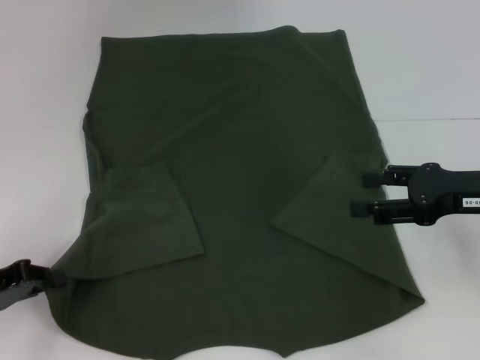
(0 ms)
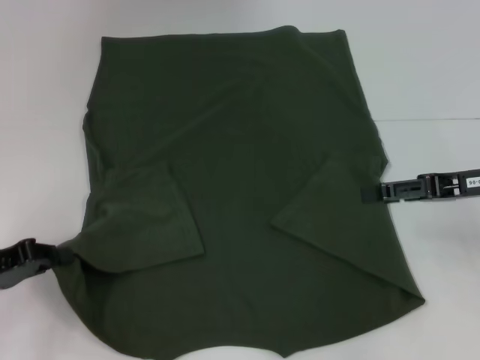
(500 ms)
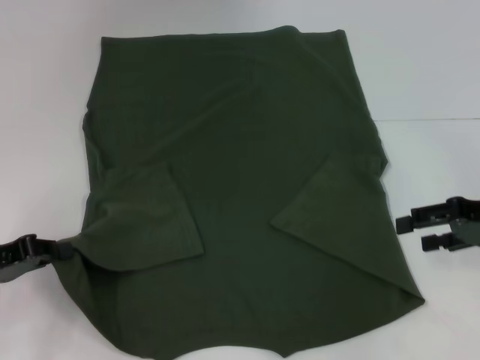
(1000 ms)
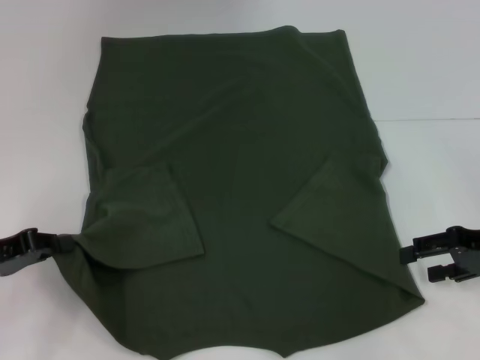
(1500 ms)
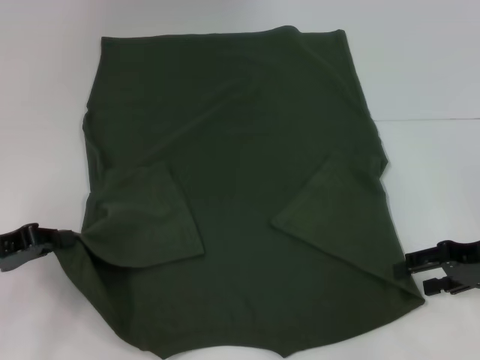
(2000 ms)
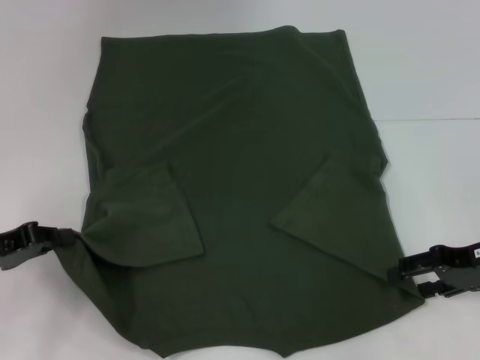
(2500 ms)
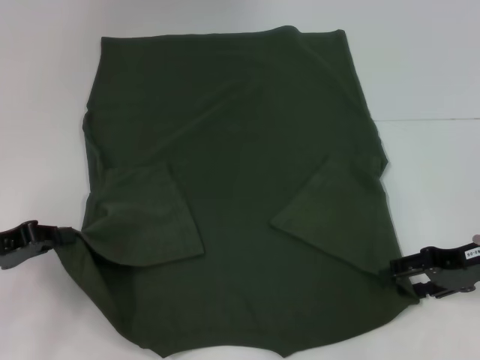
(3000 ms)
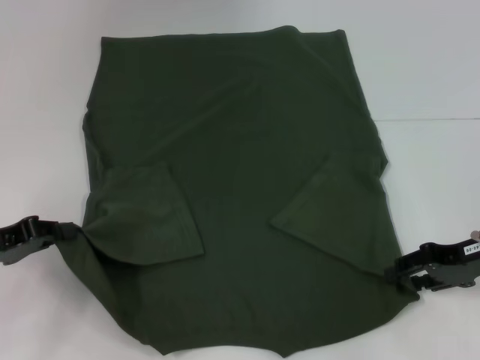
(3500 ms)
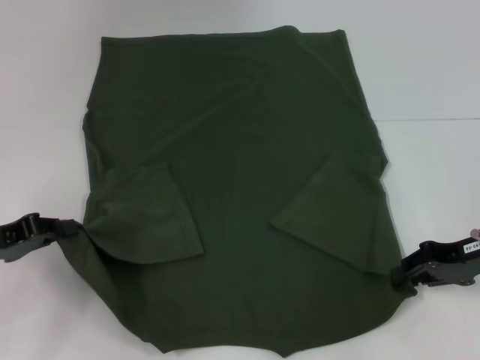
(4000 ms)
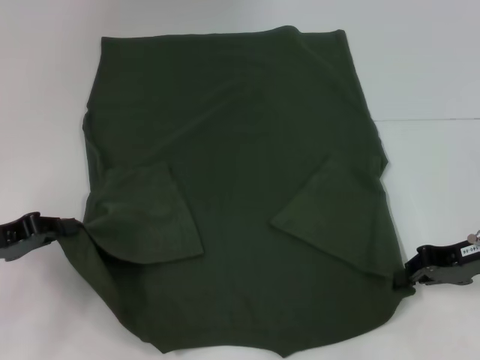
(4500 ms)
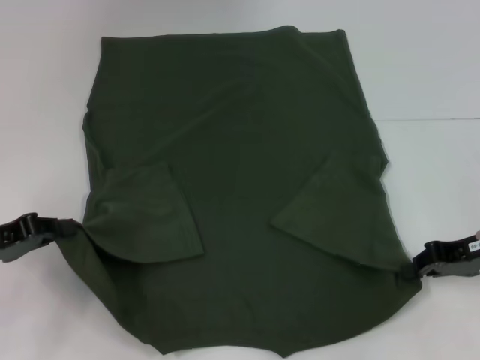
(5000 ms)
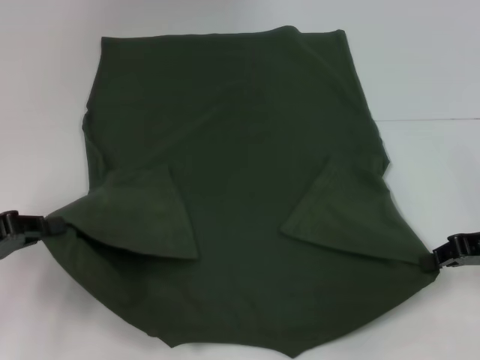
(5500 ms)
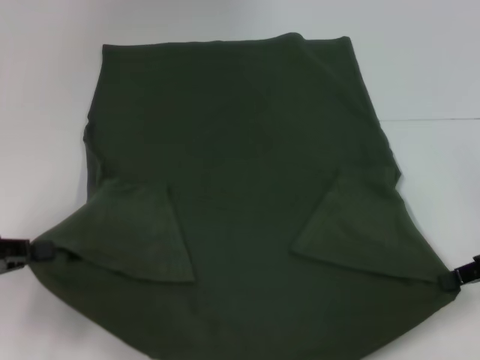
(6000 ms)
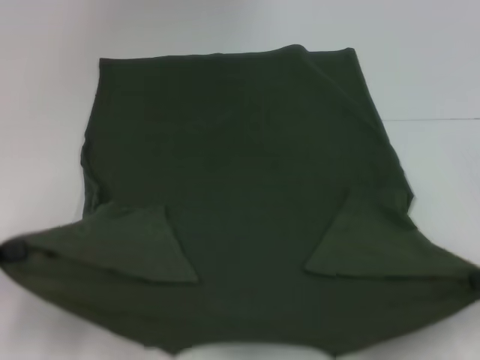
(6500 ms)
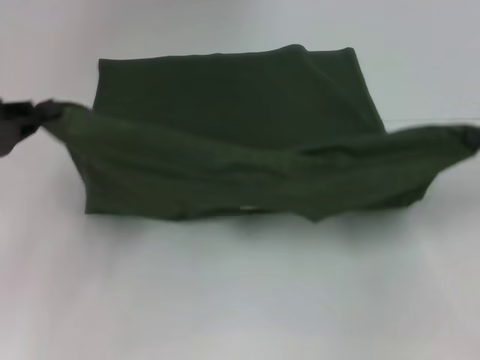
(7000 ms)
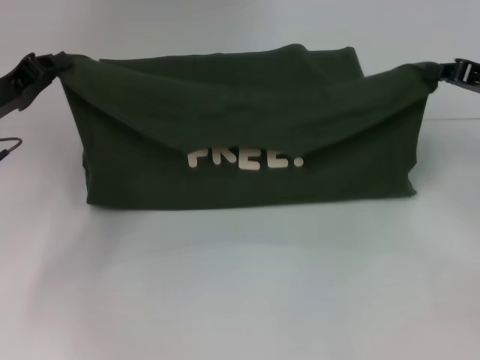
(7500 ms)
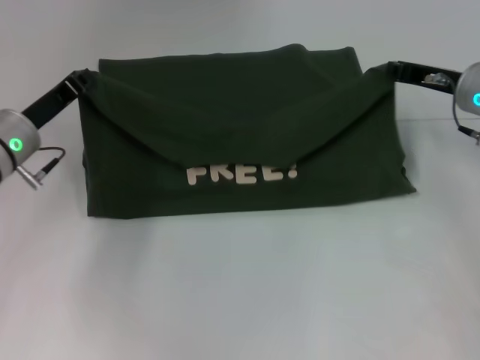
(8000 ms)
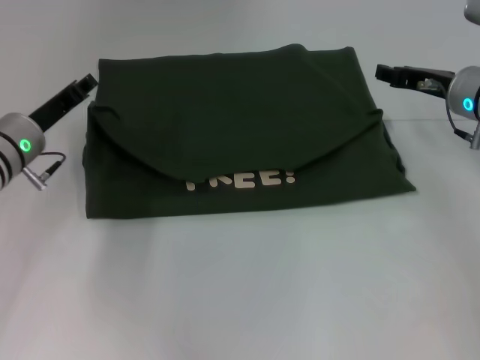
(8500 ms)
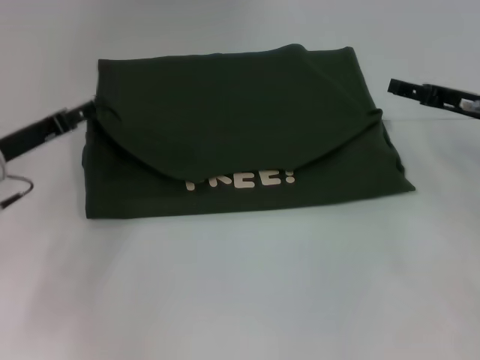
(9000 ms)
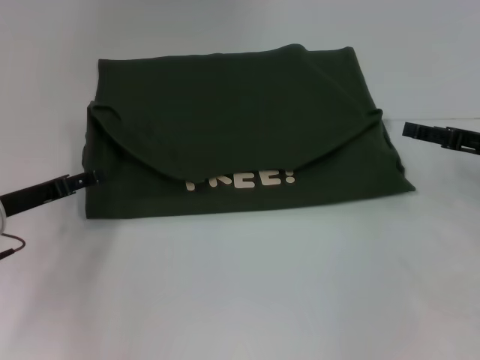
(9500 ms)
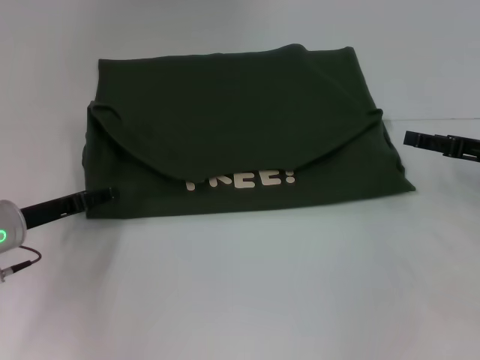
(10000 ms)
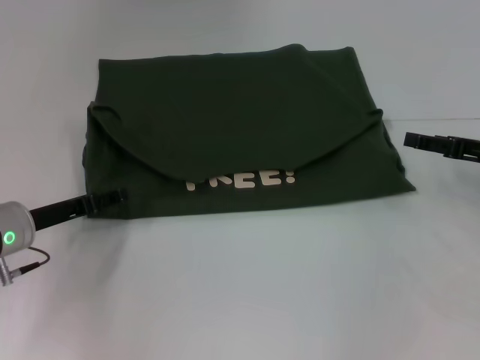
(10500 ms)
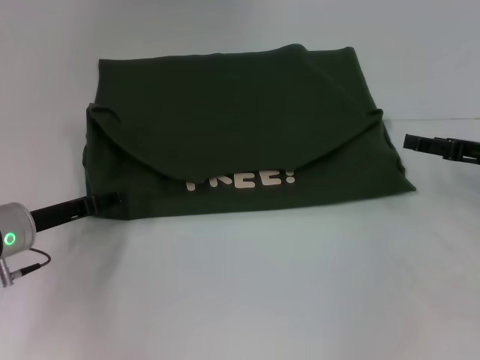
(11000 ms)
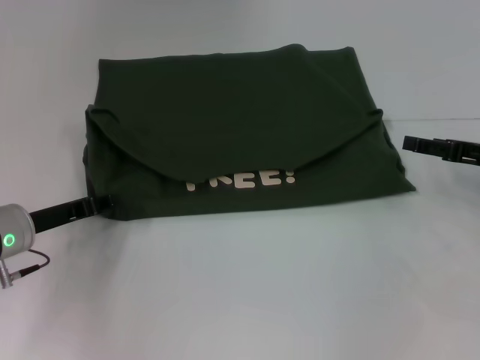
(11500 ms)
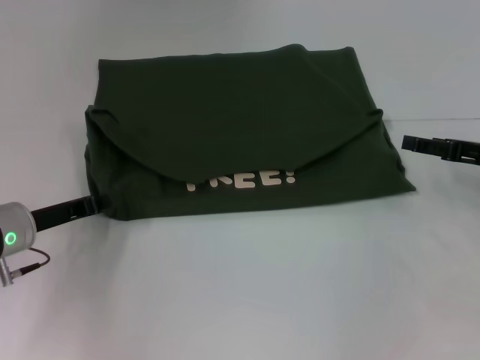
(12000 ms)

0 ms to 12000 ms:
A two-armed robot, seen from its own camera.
Step, 0 ms to 4000 ms: Grab the bottom right corner with your right hand.
Step, 4500 ms to 9500 ms: Fold the clothes with your left hand.
Step, 4500 ms to 9500 ms: Fold the clothes with your right hand.
2000 ms to 4000 ms: The right gripper closes its fingers.
4000 ms to 6000 ms: The right gripper ends up about 5 cm from where it was; the left gripper moves approximately 5 cm.
6000 ms to 8000 ms: The left gripper is displaced forward and to the right by roughly 20 cm; the right gripper goes approximately 15 cm forward and to the left.
8000 ms to 10000 ms: The left gripper travels backward and downward by approximately 5 cm, and opens, while the right gripper travels backward and to the right by approximately 10 cm, and opens.
10000 ms to 12000 ms: The left gripper closes its fingers.

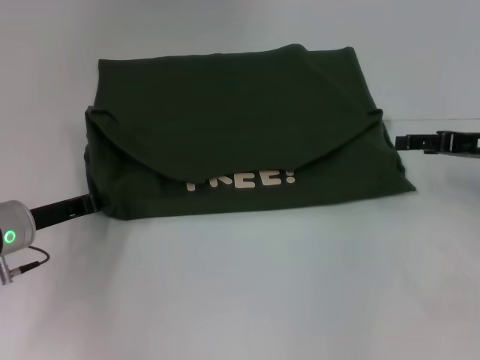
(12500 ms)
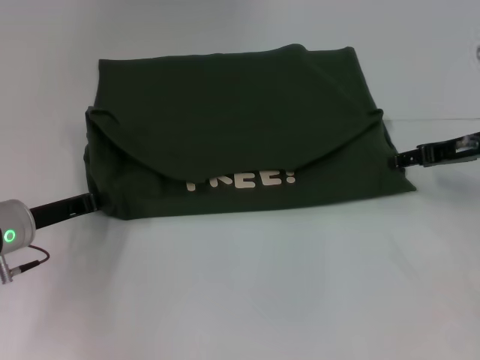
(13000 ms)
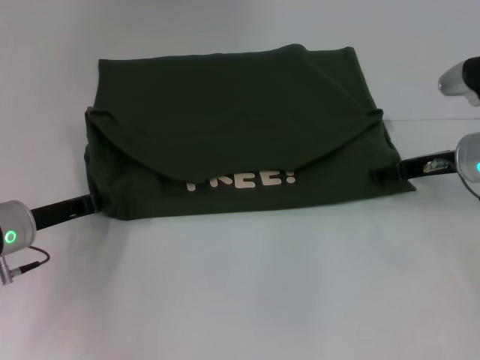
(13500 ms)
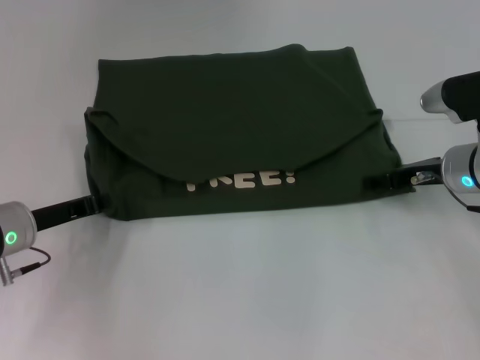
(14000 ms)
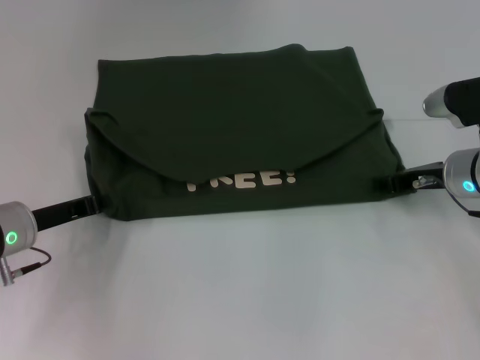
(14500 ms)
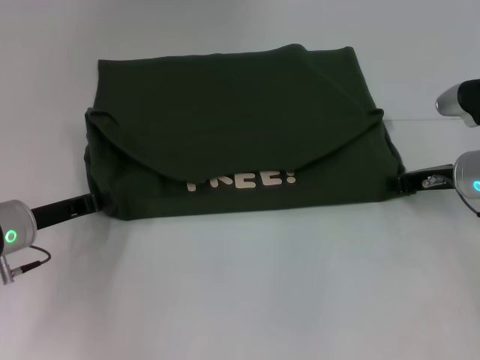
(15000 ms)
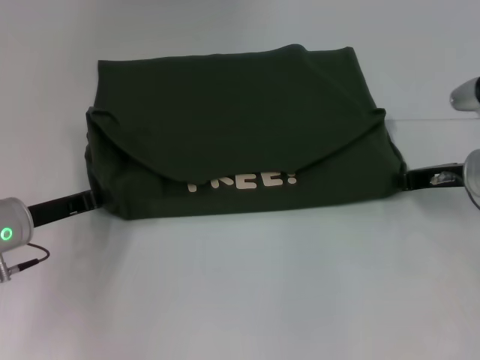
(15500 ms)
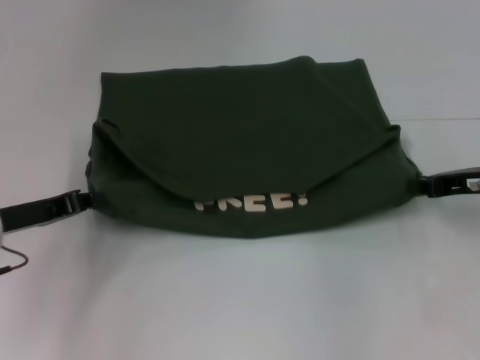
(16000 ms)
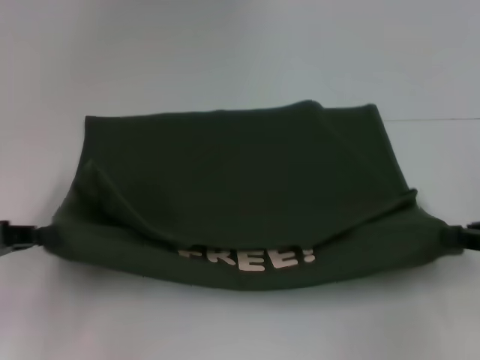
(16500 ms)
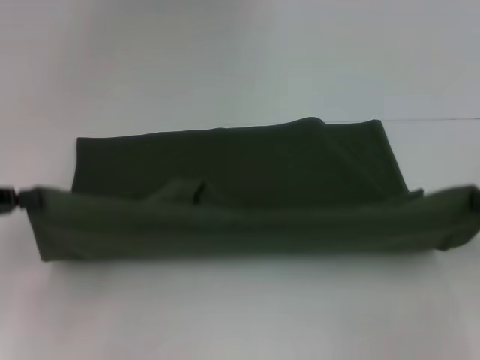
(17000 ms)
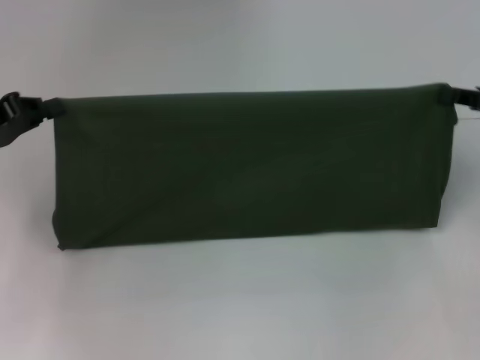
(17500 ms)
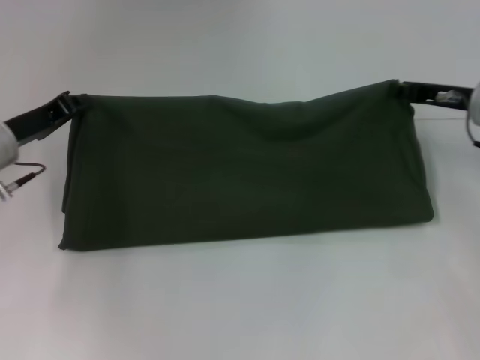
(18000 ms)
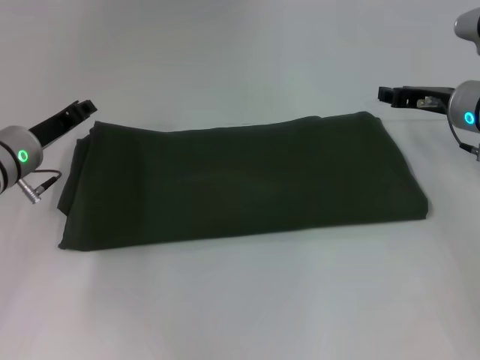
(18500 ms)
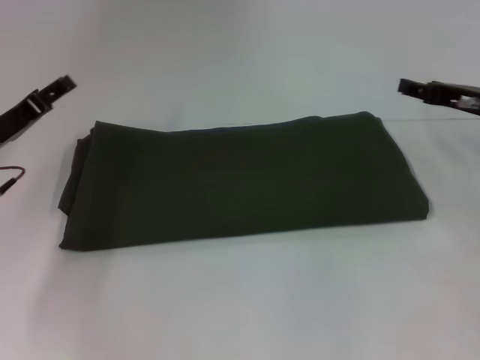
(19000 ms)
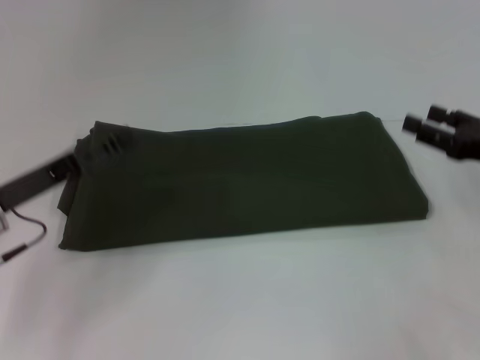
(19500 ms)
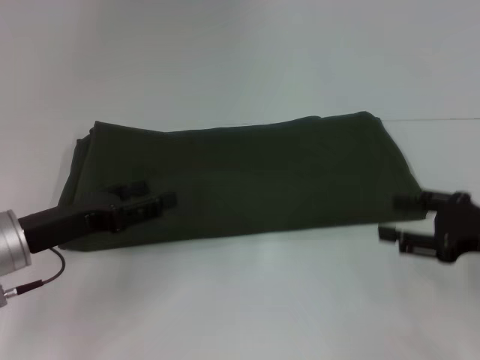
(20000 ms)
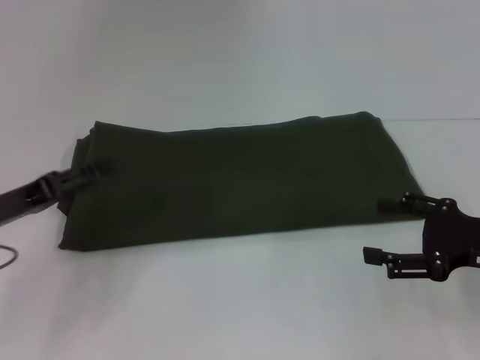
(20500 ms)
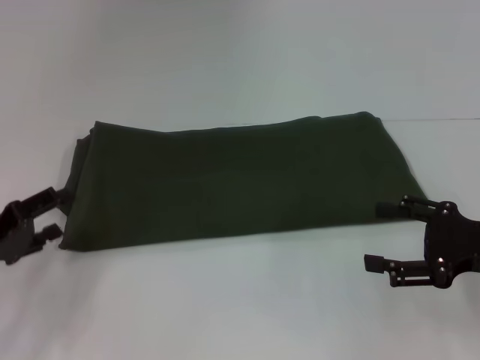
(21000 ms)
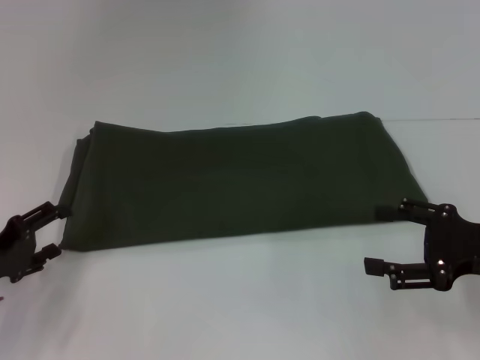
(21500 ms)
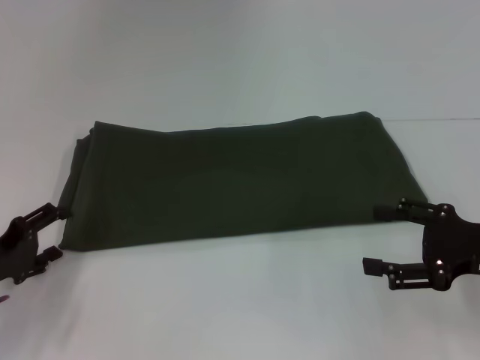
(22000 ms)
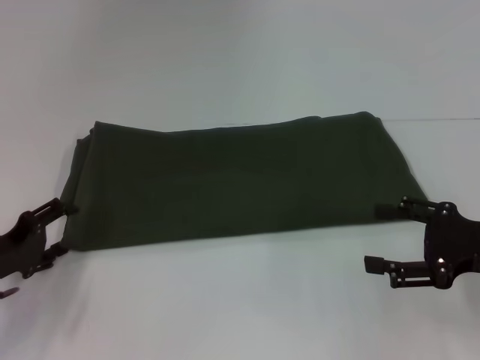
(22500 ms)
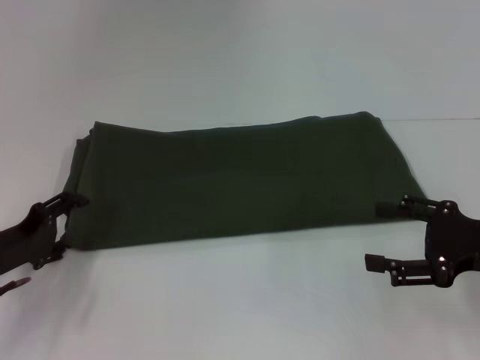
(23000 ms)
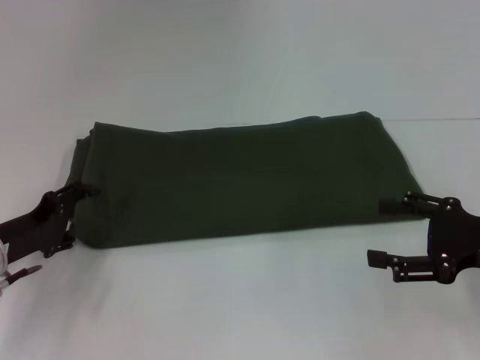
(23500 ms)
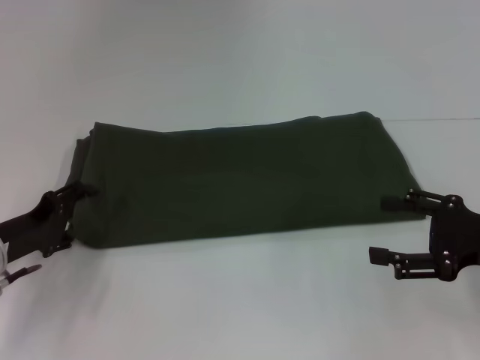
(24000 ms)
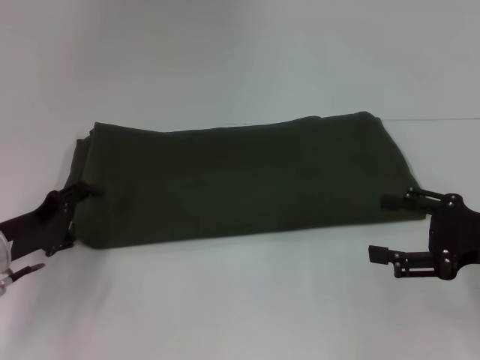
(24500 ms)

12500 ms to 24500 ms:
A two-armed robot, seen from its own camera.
Step, 12500 ms to 16000 ms: Pull the clothes with your left hand.
Step, 12500 ms to 16000 ms: Pull the clothes with your right hand.
Step, 16500 ms to 18500 ms: Fold the clothes with your right hand.
12500 ms to 14500 ms: The right gripper is displaced to the left by about 5 cm, and closes up.
14500 ms to 16500 ms: The left gripper is displaced to the left, upward and backward by about 15 cm. The right gripper travels backward and to the right by some 15 cm, and closes.
16500 ms to 18500 ms: The left gripper travels forward and to the right by roughly 15 cm; the right gripper is displaced forward and to the left by some 20 cm.
18500 ms to 20500 ms: Both grippers travel together backward, about 15 cm. The left gripper opens up. Meanwhile the right gripper opens its fingers.
20500 ms to 22500 ms: The left gripper moves downward, roughly 5 cm.
22500 ms to 24500 ms: The grippers make only small movements.

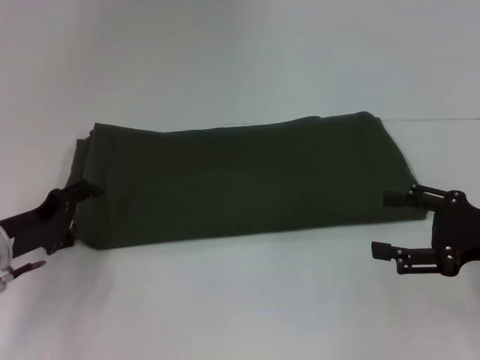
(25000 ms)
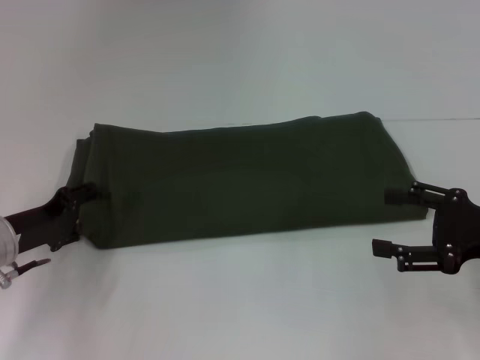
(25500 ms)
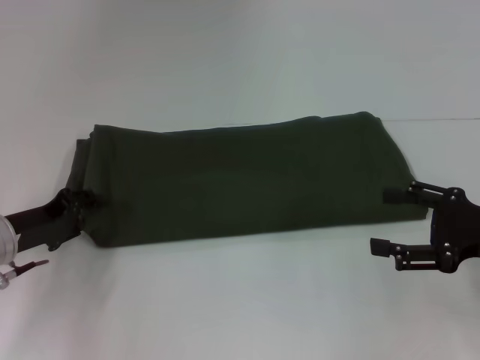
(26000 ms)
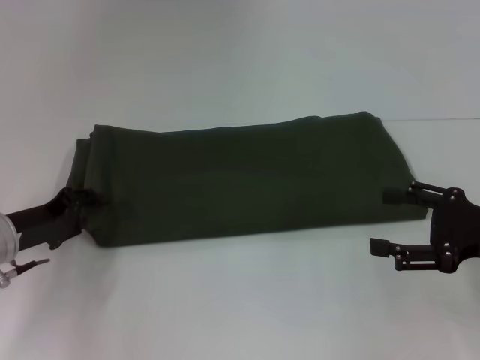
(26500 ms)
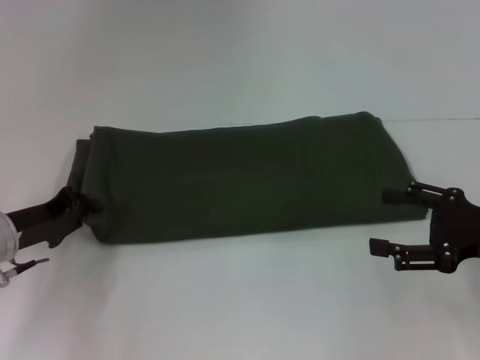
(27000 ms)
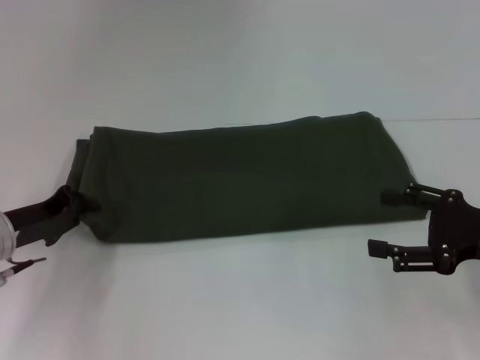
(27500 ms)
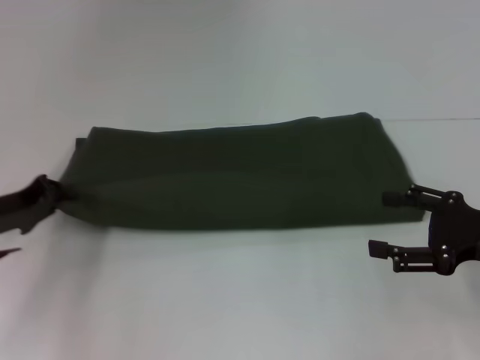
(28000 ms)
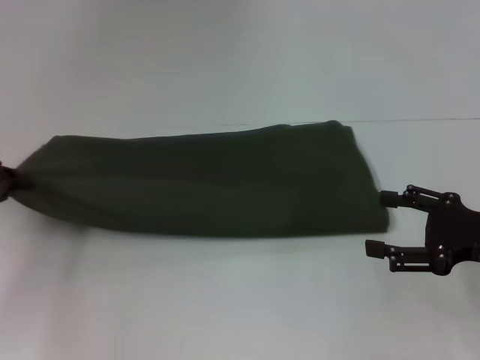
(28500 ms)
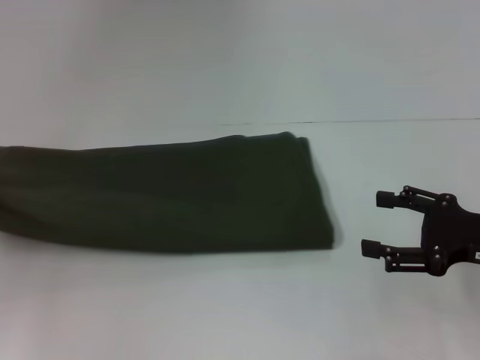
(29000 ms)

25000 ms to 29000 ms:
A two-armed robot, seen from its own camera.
25000 ms to 27000 ms: The left gripper closes up.
27000 ms to 29000 ms: The left gripper is displaced to the left and upward by approximately 15 cm.
